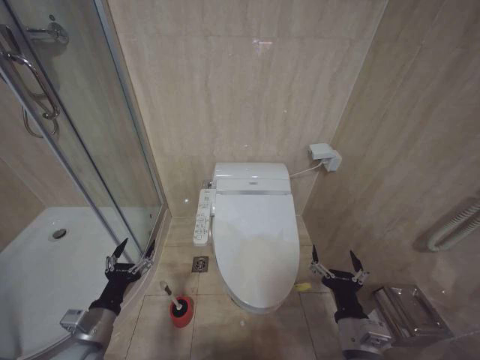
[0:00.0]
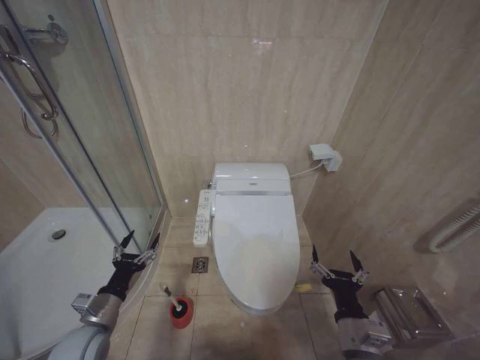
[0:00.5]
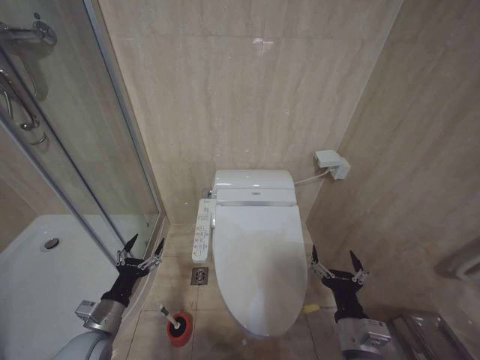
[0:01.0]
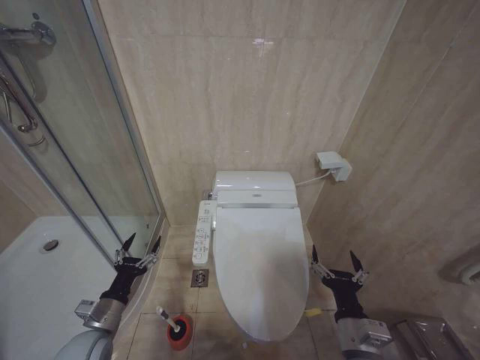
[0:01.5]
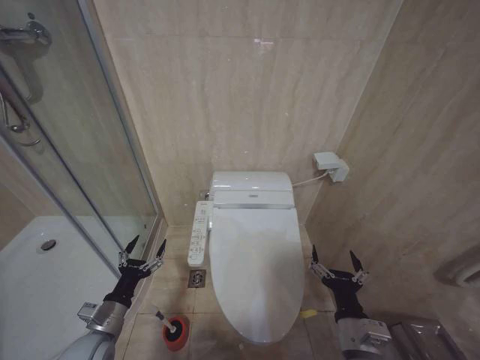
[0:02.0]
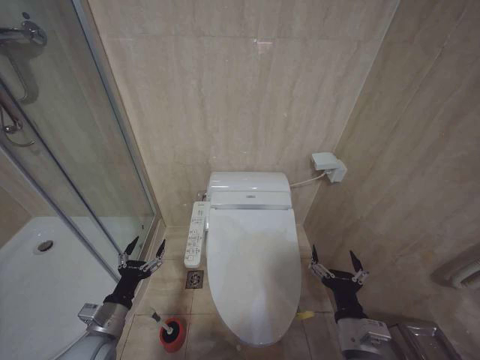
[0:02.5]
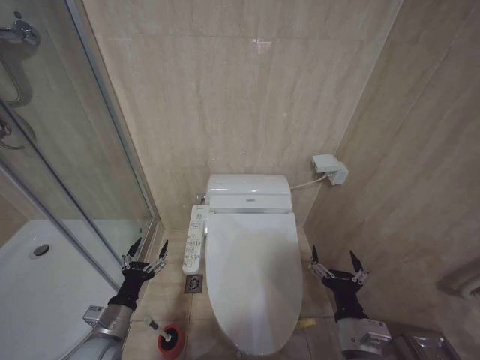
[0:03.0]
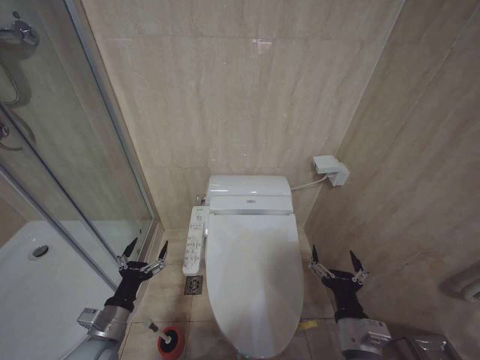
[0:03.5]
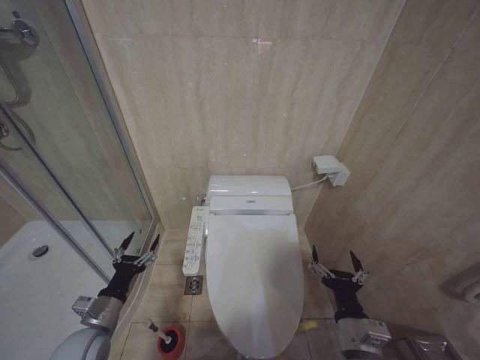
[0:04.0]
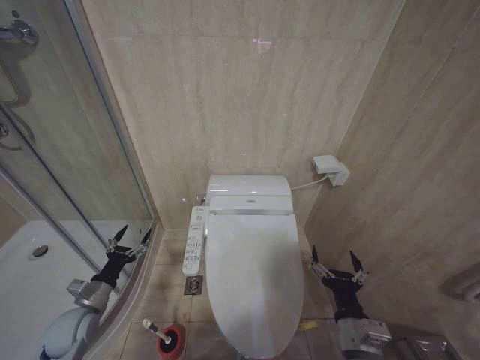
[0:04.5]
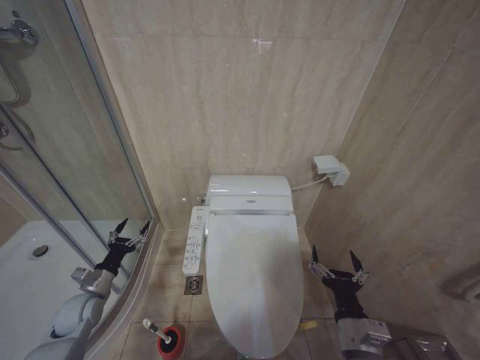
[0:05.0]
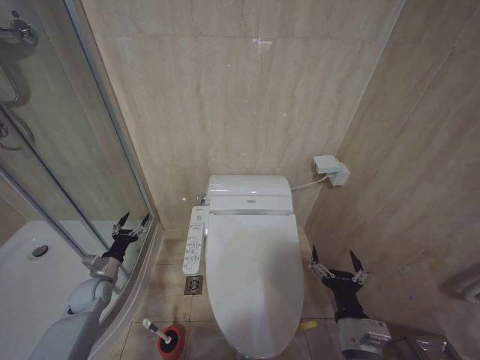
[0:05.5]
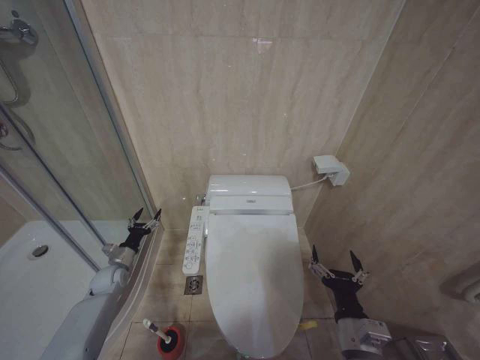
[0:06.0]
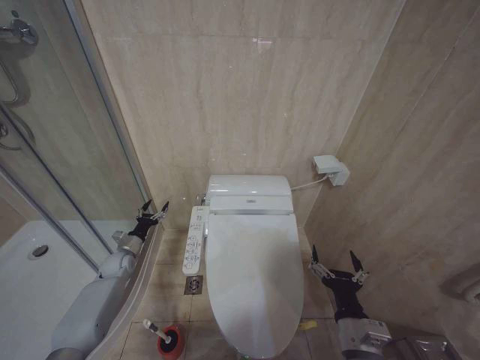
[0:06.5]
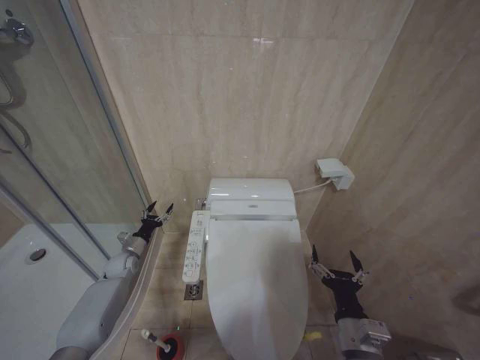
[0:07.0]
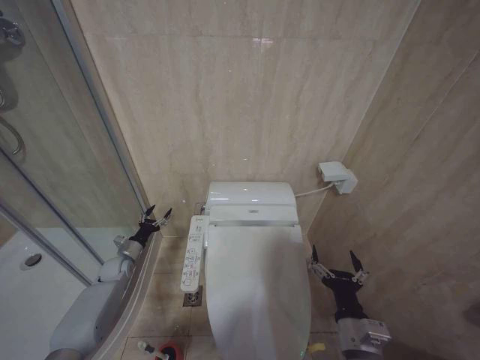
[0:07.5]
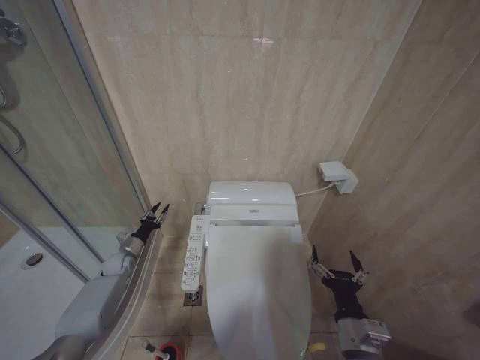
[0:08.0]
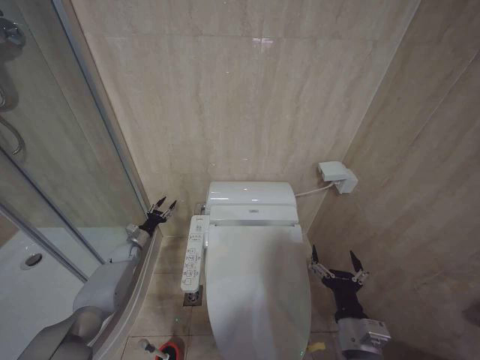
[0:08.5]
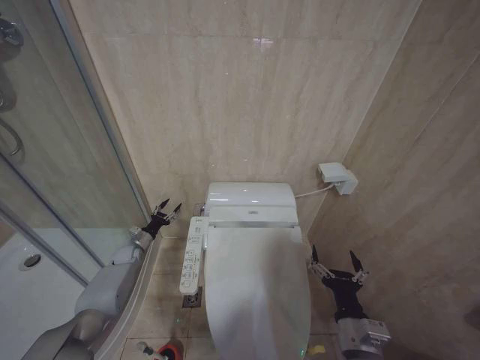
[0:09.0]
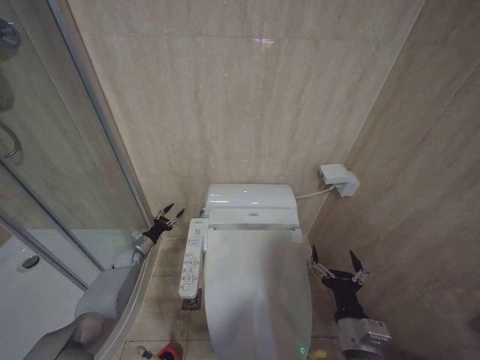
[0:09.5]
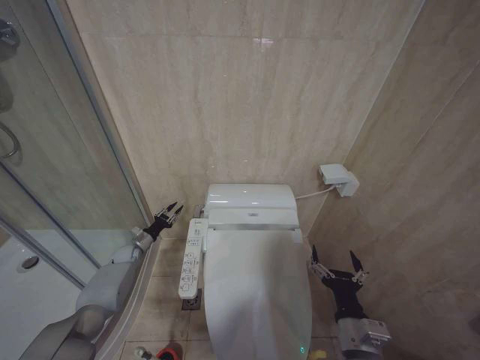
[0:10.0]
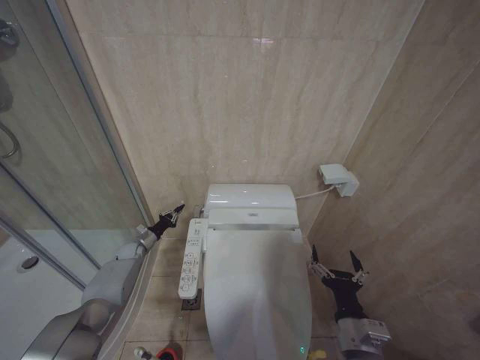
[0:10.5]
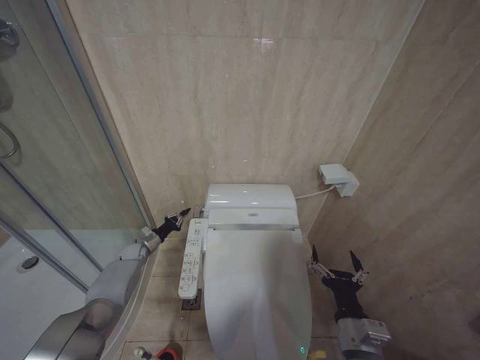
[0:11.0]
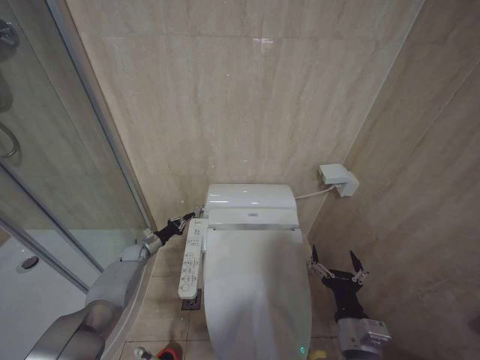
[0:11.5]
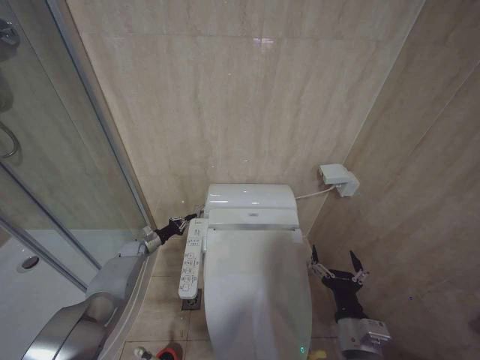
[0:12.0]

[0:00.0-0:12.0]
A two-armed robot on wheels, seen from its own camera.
Task of the whole recording: Open the toilet lid, clean the toilet bowl with a toilet brush, close the toilet lid, and flush.
0:00.0 to 0:04.0: The grippers make only small movements.
0:04.0 to 0:06.0: The left gripper is displaced forward and downward by approximately 20 cm.
0:06.0 to 0:08.0: The left gripper heads forward, covering some 5 cm.
0:08.0 to 0:10.0: The grippers stay close to where they were, moving slightly.
0:10.0 to 0:12.0: The left gripper closes its fingers.

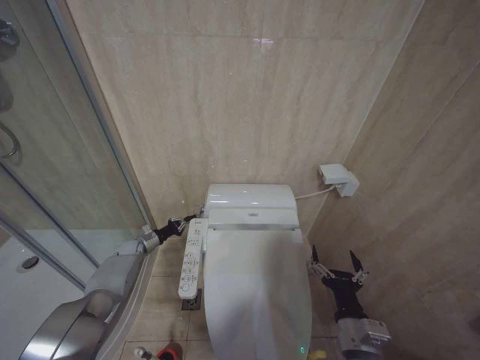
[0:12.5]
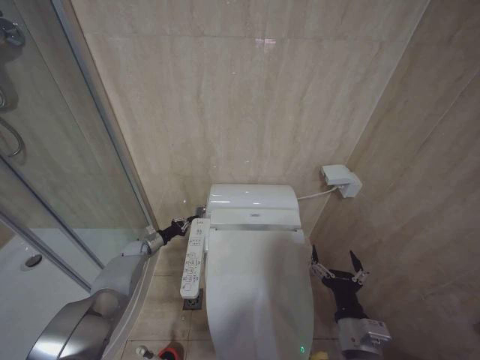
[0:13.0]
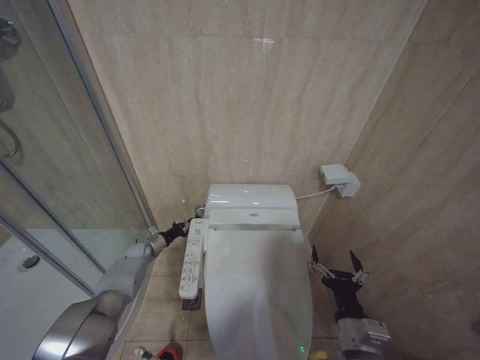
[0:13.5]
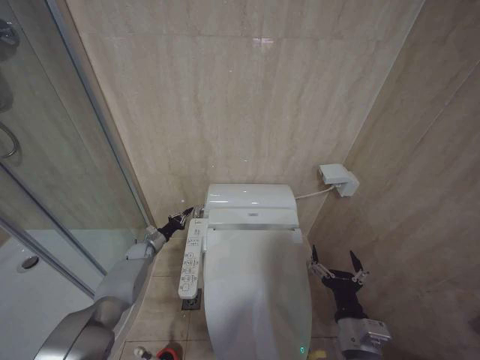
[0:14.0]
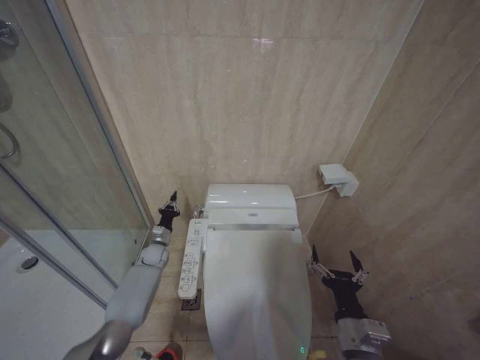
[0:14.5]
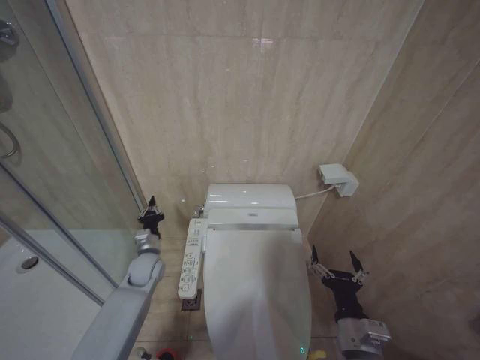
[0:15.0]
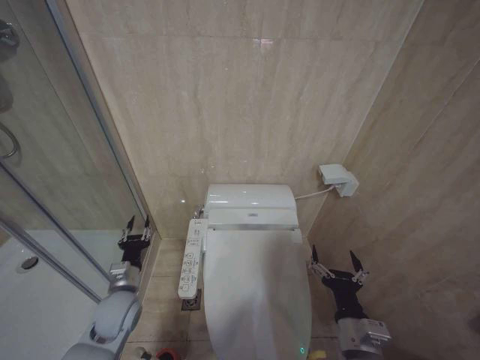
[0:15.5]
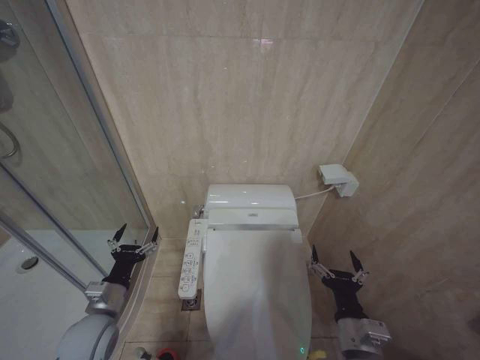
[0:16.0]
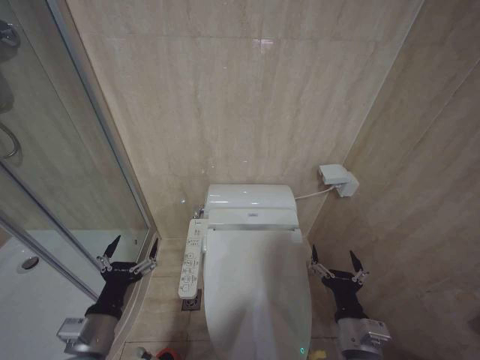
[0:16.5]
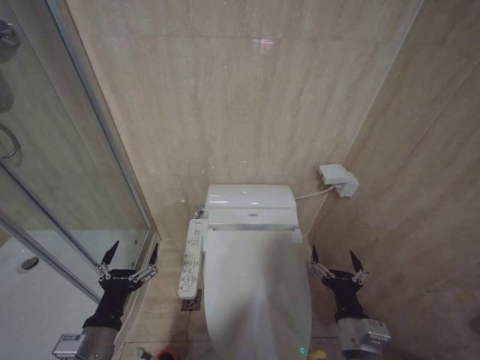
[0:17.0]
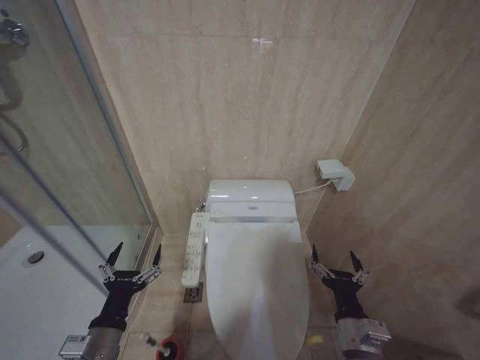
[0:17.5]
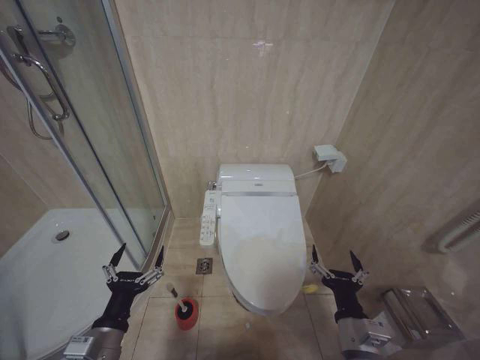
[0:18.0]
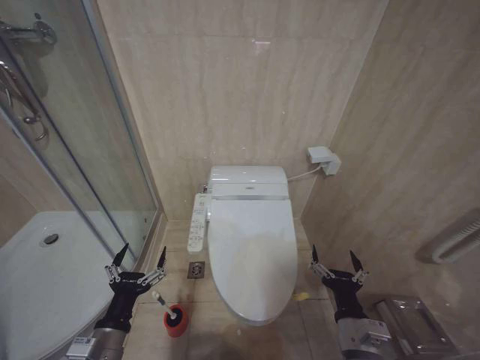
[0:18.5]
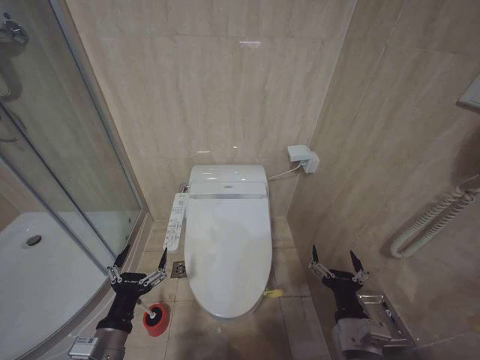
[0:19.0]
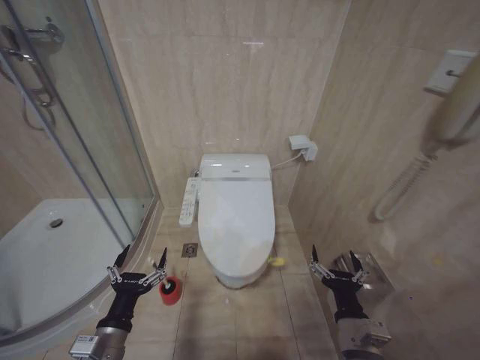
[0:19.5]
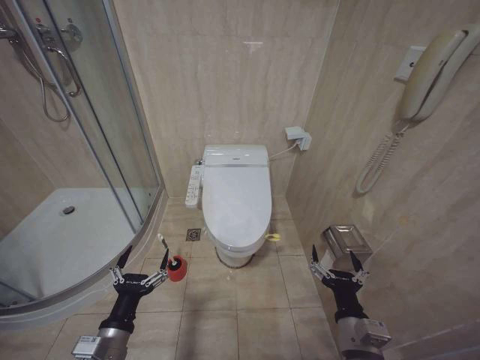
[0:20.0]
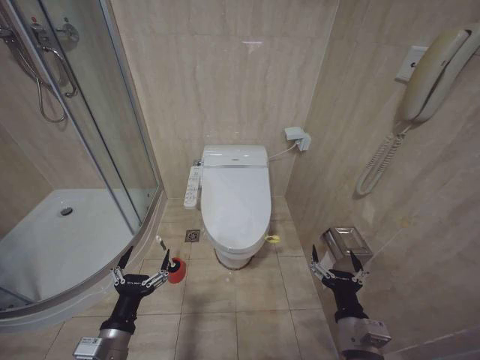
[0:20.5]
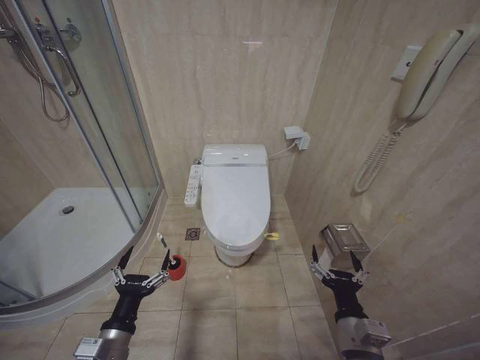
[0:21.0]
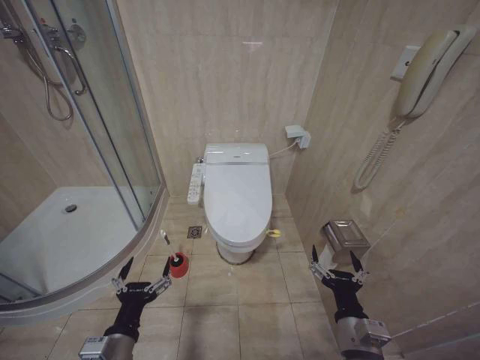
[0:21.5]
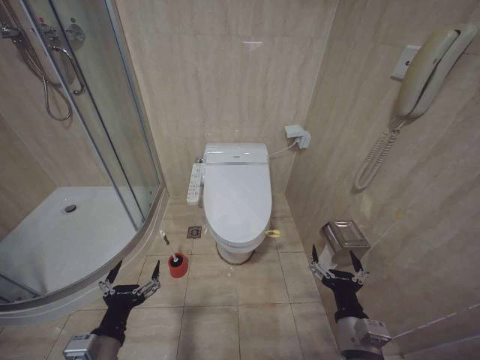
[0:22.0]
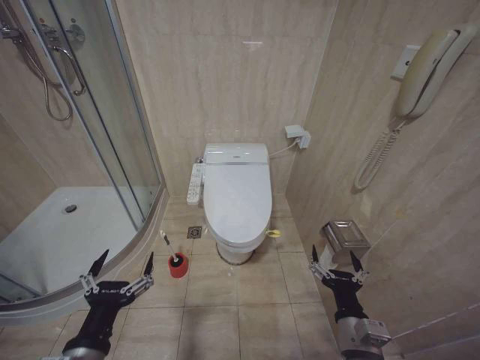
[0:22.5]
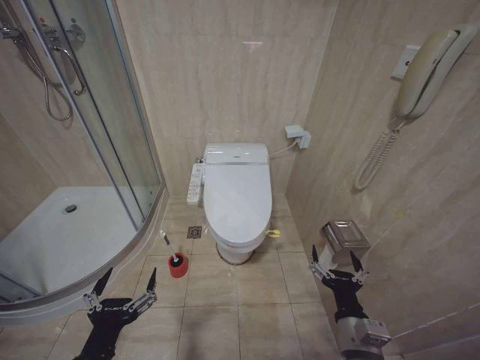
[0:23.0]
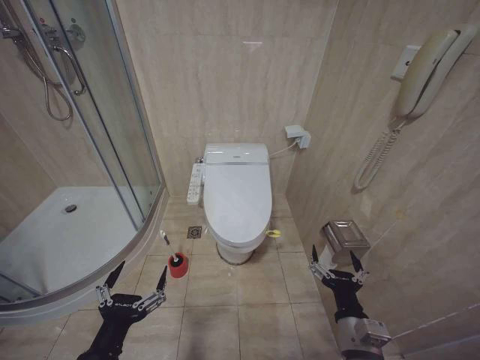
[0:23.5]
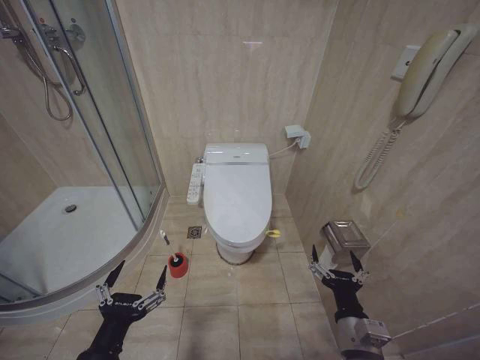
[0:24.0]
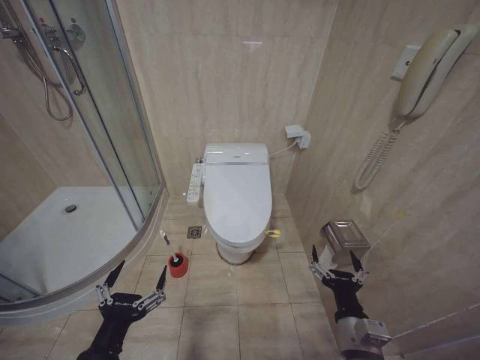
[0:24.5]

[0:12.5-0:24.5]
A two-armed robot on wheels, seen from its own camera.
Task of the whole recording: Open the toilet lid, clean the toilet bowl with a toilet brush, close the toilet lid, and flush.
0:12.5 to 0:14.5: The left gripper moves to the right, approximately 10 cm.
0:14.5 to 0:16.5: The left gripper travels backward and upward by approximately 40 cm, and opens up.
0:16.5 to 0:18.5: The grippers stay close to where they were, moving slightly.
0:20.5 to 0:22.5: The left gripper moves upward, some 10 cm.
0:22.5 to 0:24.5: The grippers make only small movements.
